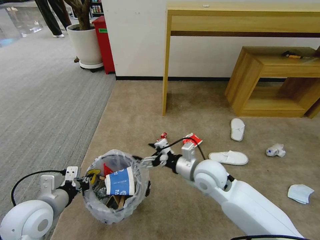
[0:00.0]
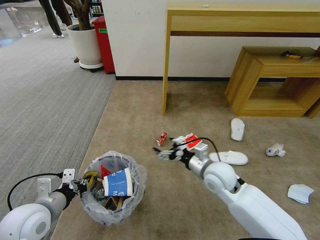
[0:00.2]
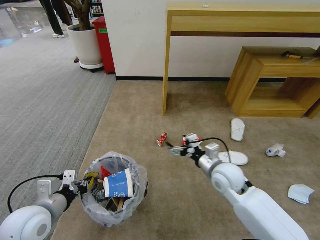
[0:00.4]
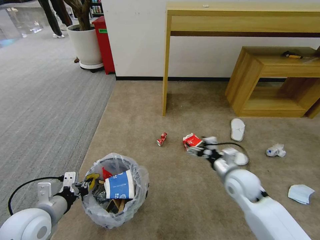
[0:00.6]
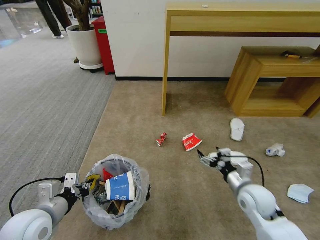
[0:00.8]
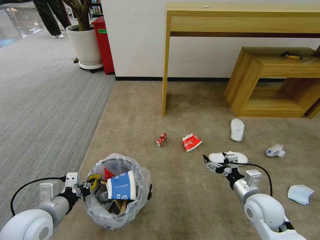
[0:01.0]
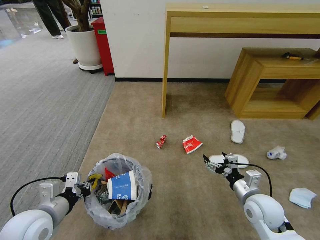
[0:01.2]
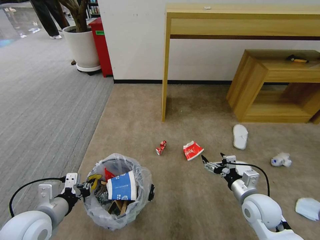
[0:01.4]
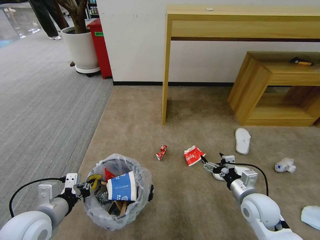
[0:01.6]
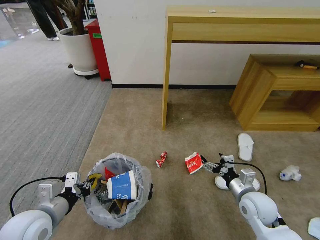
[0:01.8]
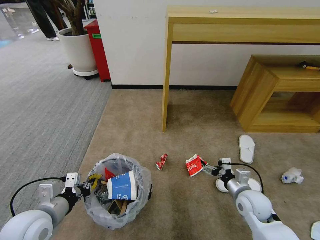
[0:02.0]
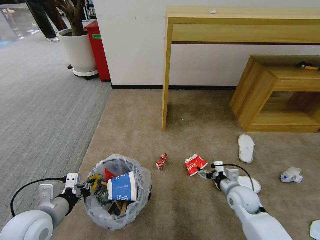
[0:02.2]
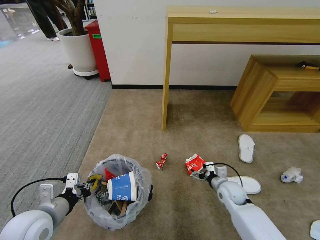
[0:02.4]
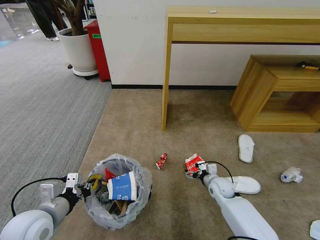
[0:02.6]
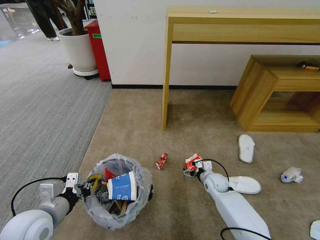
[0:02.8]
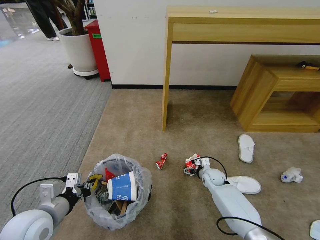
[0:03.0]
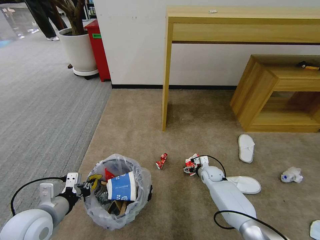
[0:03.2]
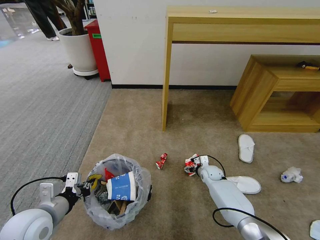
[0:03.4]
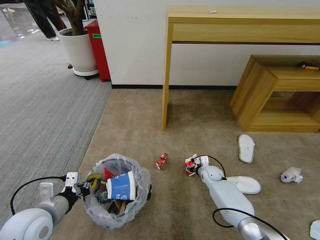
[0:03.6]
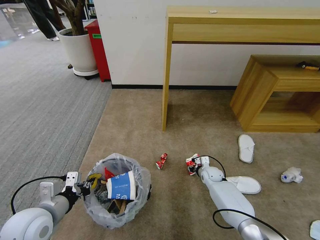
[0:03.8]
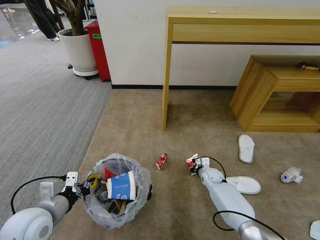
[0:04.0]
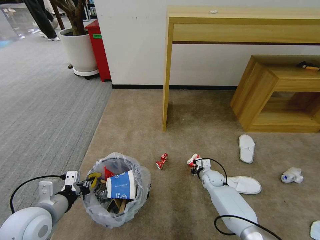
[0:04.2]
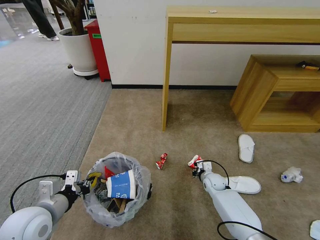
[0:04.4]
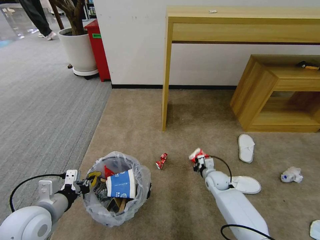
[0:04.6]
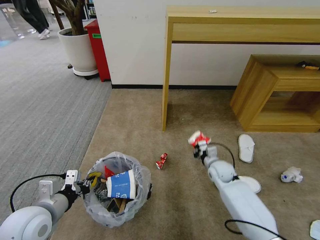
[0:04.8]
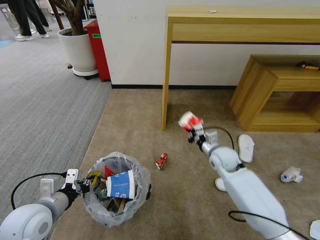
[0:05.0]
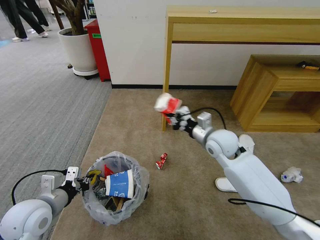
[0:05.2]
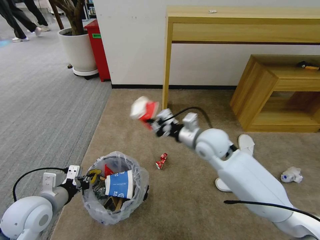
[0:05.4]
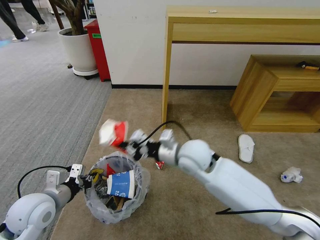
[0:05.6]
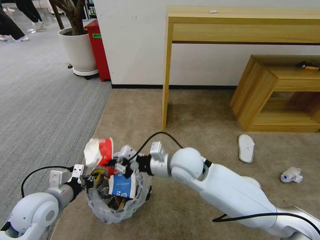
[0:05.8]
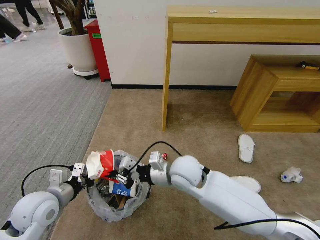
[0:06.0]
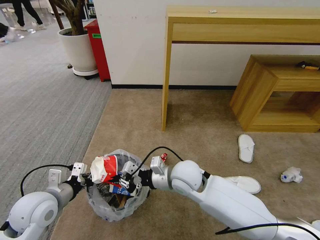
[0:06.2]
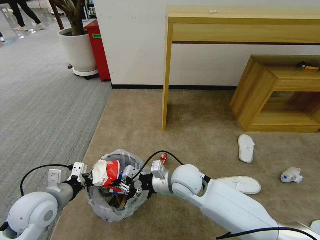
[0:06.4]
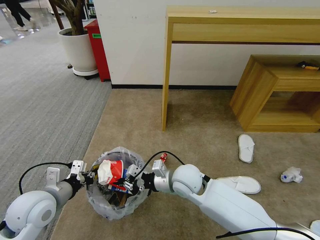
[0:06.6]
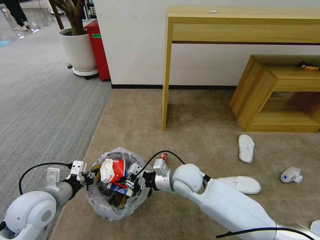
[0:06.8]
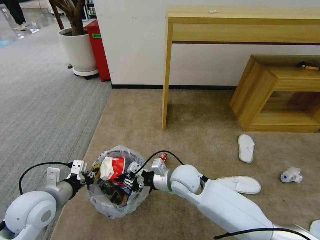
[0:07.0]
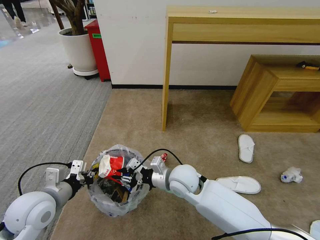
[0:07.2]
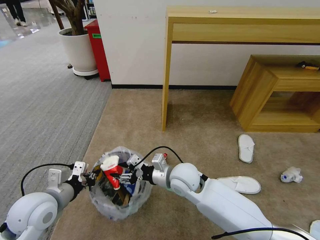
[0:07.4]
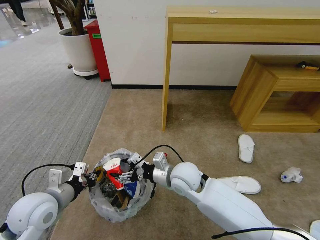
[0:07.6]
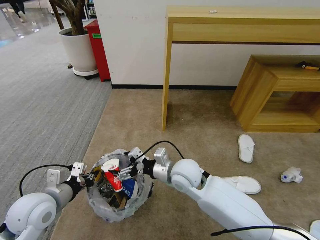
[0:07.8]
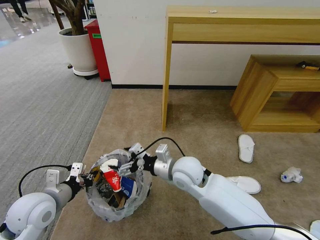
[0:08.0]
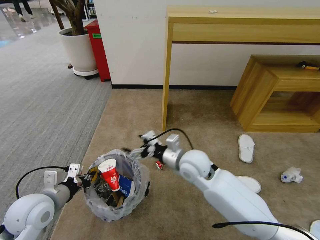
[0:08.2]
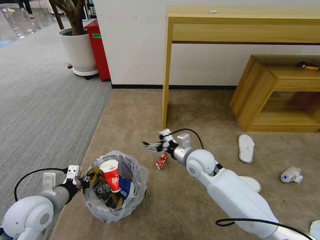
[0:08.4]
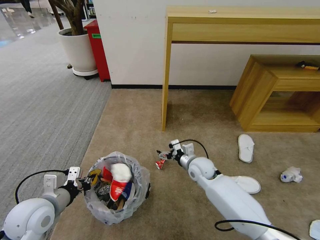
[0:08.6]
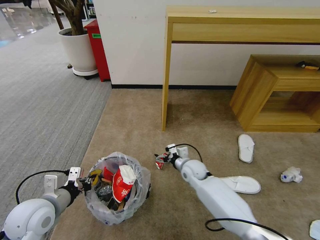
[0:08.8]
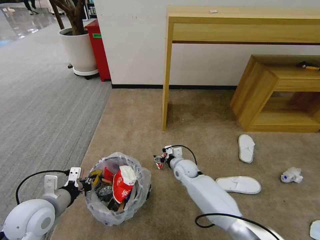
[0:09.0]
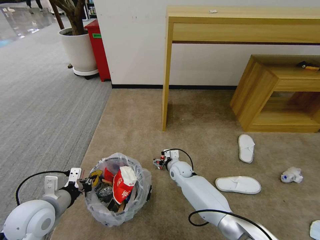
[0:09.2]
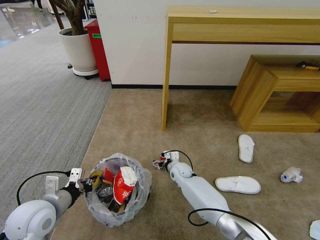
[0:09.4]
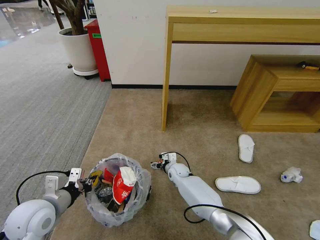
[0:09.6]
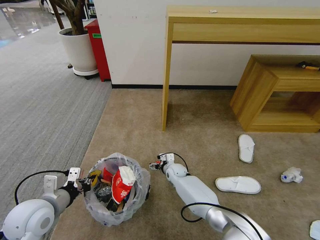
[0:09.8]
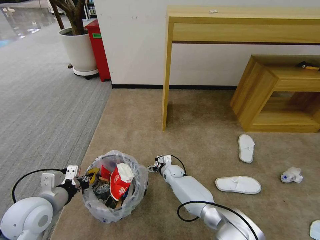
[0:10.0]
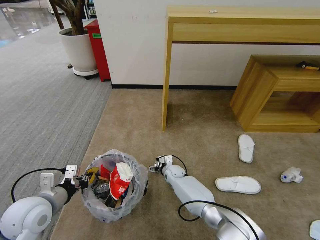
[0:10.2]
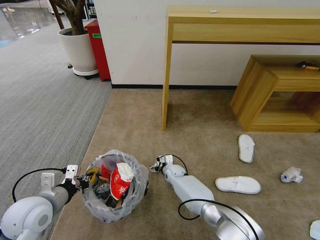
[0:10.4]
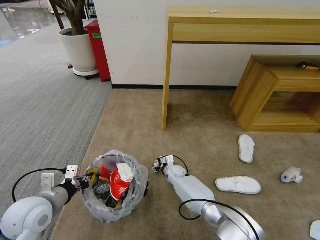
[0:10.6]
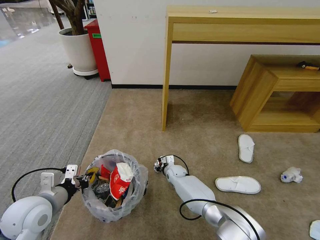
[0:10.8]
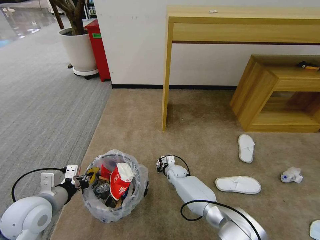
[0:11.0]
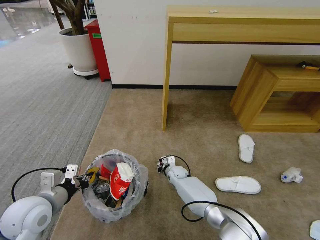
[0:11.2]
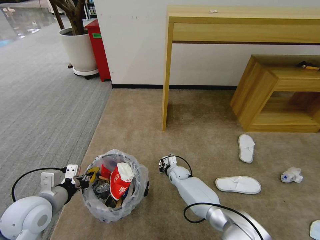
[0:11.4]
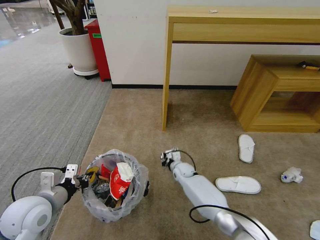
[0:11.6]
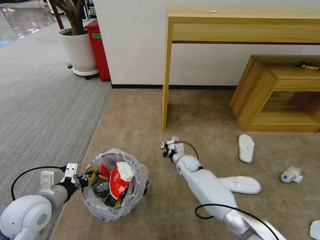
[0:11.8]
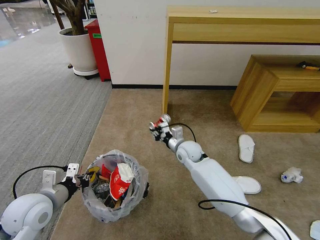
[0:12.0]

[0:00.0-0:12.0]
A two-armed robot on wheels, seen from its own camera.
Task of the whole recording: Pick up the trash bin and place the garbage on the floor into it.
0:00.0 to 0:01.6: The right gripper goes some 20 cm to the right, downward and backward.
0:01.6 to 0:03.0: The right gripper is displaced forward and downward by approximately 25 cm.
0:03.0 to 0:04.4: The right gripper closes up.
0:04.4 to 0:06.0: The right gripper goes roughly 30 cm upward and to the left.
0:06.0 to 0:07.6: The right gripper opens.
0:07.6 to 0:09.0: The right gripper is displaced downward and forward by roughly 20 cm.
0:09.0 to 0:10.4: The right gripper heads downward, covering about 10 cm.
0:10.4 to 0:12.0: The right gripper shifts roughly 15 cm upward, and closes its fingers.

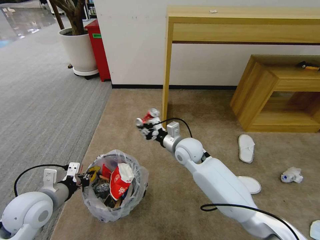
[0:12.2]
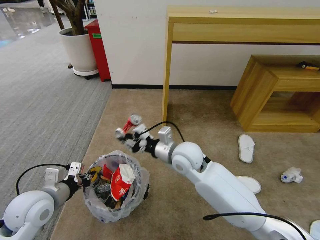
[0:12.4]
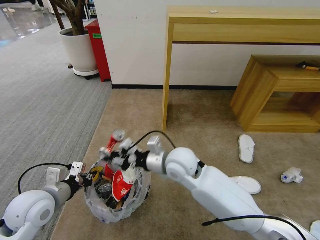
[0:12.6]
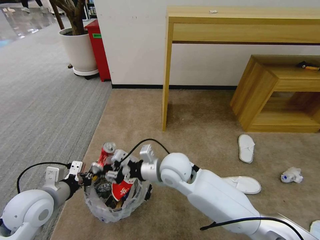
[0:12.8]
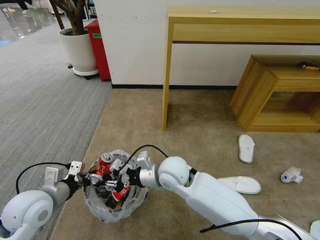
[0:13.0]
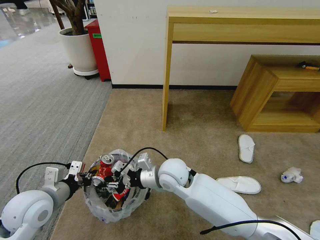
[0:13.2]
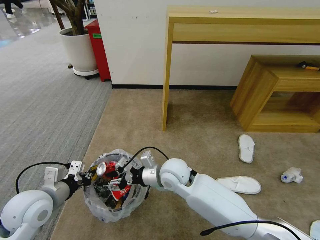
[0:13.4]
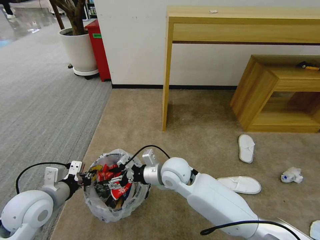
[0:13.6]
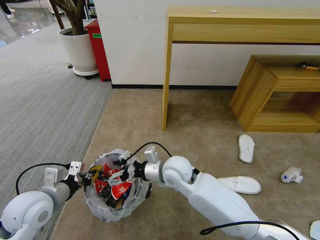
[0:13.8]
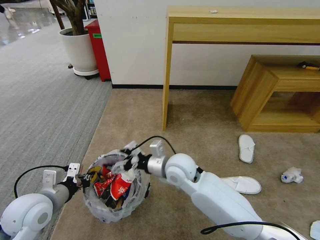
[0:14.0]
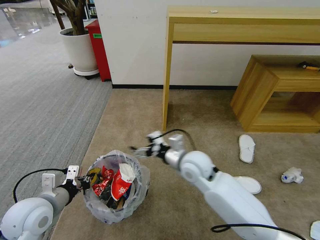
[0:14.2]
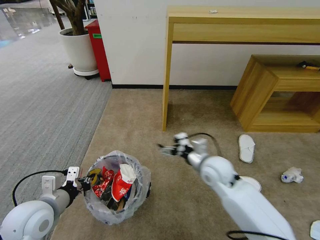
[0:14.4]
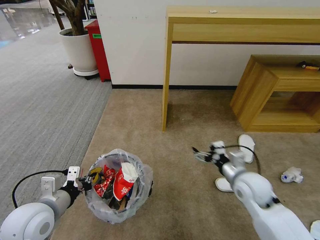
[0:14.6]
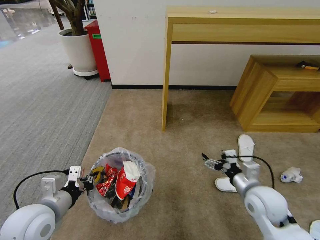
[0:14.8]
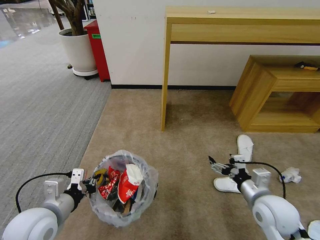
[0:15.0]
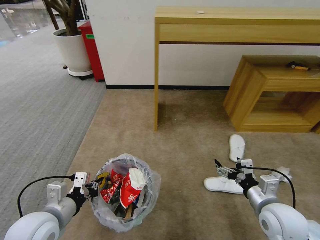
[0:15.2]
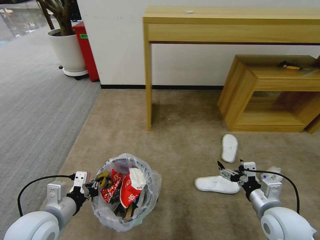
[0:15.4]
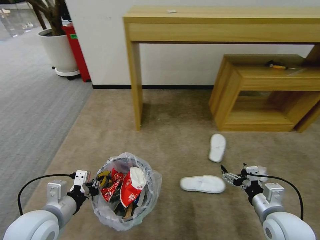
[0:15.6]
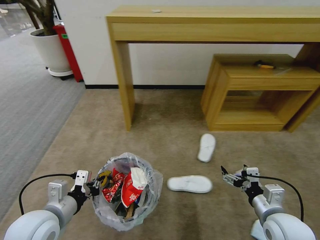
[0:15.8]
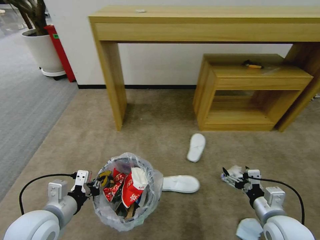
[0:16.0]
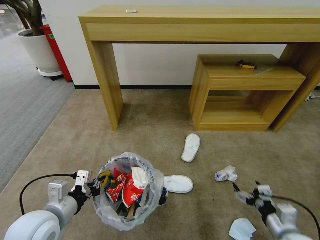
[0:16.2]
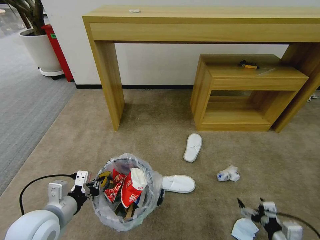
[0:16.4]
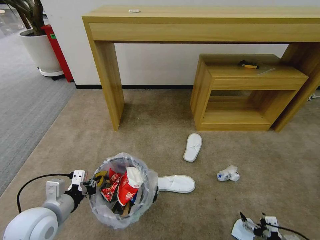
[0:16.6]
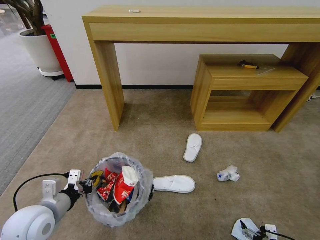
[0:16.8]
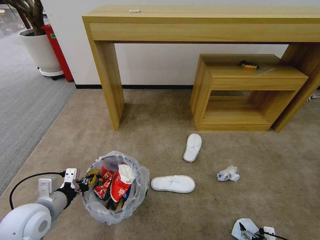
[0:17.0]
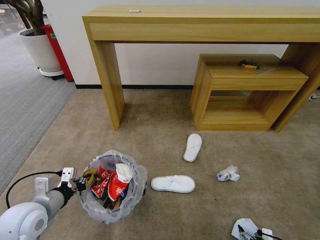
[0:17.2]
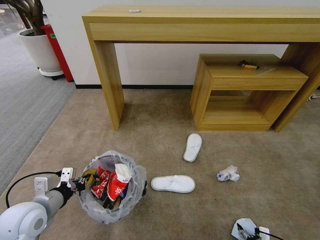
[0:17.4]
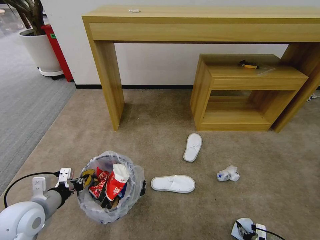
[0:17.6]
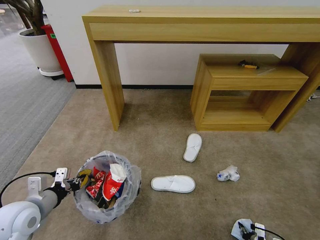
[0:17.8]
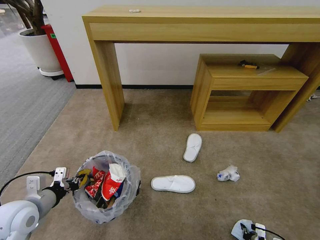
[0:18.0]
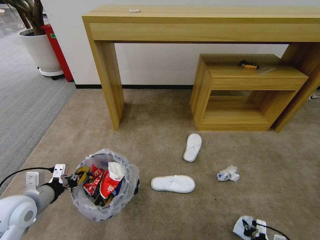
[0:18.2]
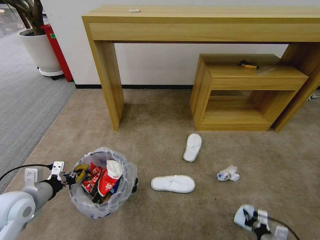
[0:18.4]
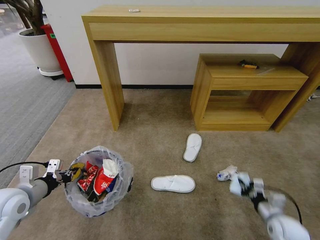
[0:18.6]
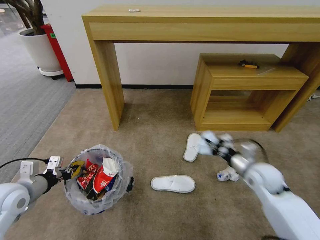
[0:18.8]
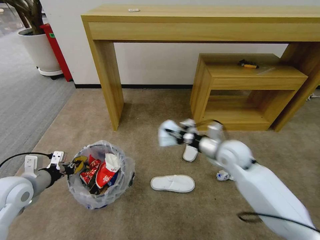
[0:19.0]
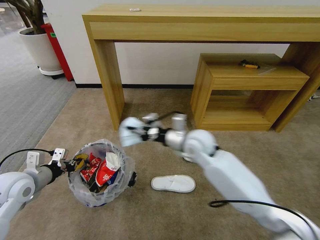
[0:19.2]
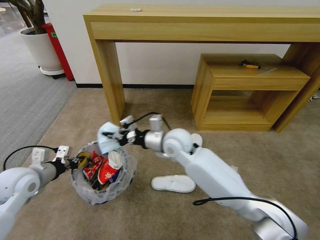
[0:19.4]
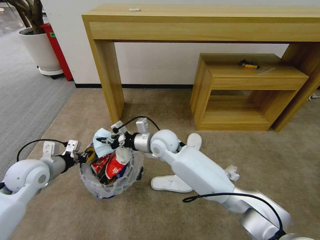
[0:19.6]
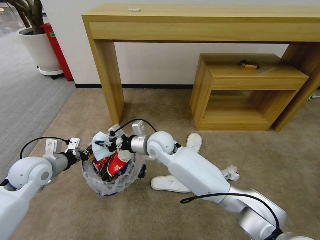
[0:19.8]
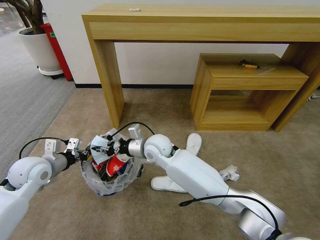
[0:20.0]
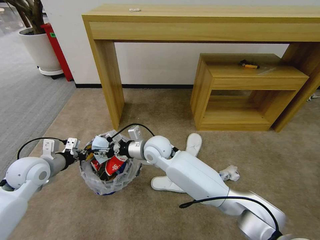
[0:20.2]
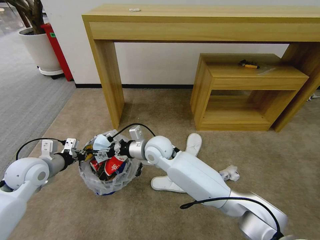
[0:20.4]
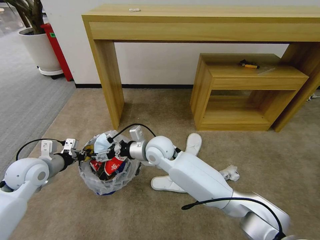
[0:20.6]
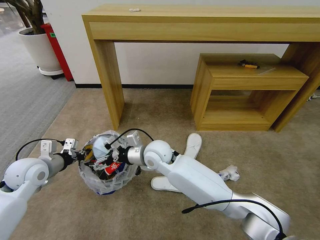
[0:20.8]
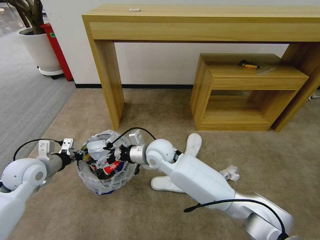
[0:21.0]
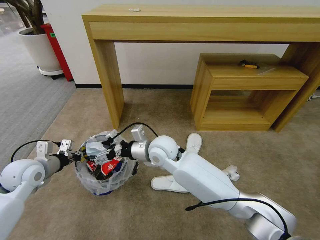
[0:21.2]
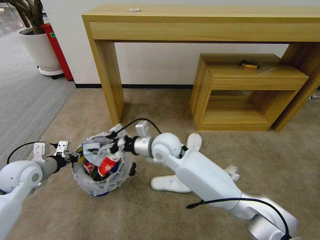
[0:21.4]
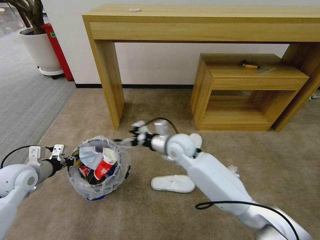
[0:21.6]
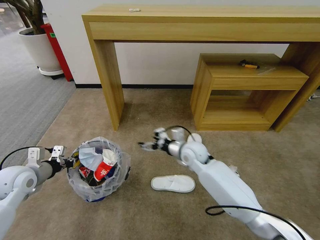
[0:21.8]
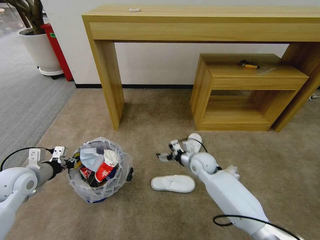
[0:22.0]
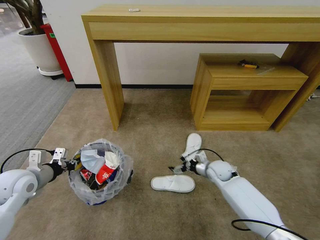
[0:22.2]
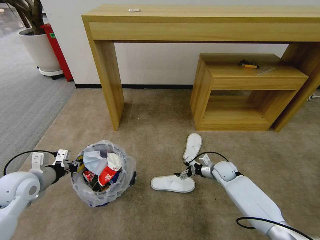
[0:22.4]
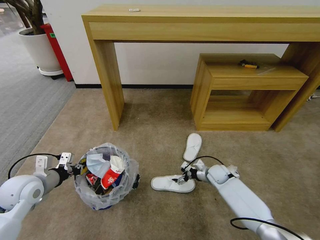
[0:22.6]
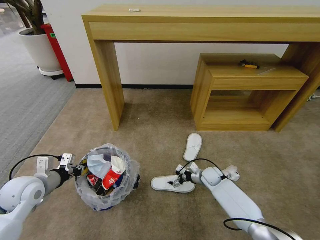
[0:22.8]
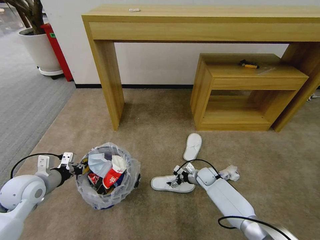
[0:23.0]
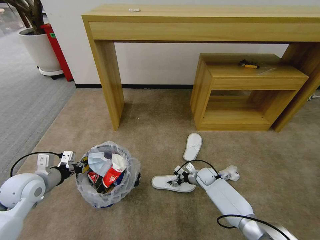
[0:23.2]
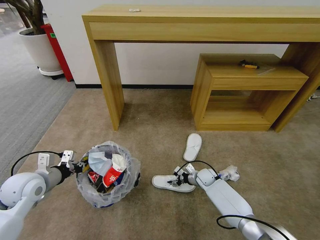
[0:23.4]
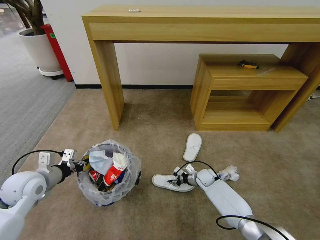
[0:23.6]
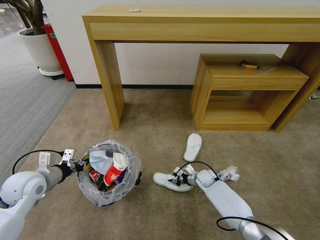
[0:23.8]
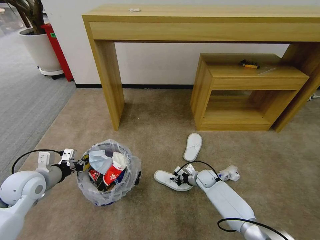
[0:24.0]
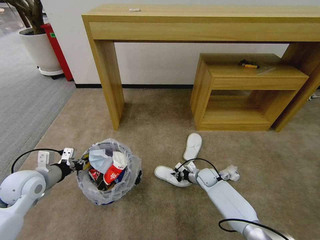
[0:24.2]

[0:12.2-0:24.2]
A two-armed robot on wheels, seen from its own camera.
Task of the whole recording: Pick up the trash bin and place the garbage on the floor into it.
0:12.2 to 0:13.8: The right gripper is displaced backward by some 10 cm, and opens up.
0:13.8 to 0:15.2: The right gripper goes about 30 cm to the right and backward, while the left gripper moves some 5 cm.
0:15.2 to 0:16.6: The right gripper moves downward, backward and to the right, some 20 cm.
0:16.6 to 0:18.2: The left gripper moves to the left, some 5 cm, while the right gripper goes approximately 10 cm downward, and closes up.
0:18.2 to 0:19.8: The right gripper goes approximately 60 cm to the left, forward and upward, while the left gripper goes approximately 10 cm forward.
0:19.8 to 0:21.2: The right gripper opens its fingers.
0:21.2 to 0:22.6: The right gripper travels to the right and downward by some 35 cm.
0:22.6 to 0:24.2: The right gripper changes place by some 5 cm, and closes.
